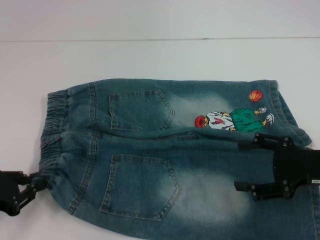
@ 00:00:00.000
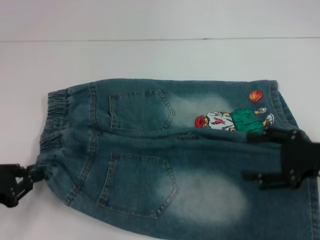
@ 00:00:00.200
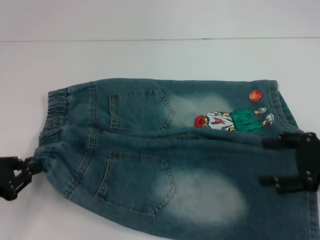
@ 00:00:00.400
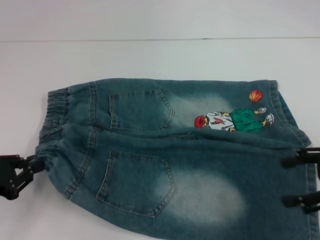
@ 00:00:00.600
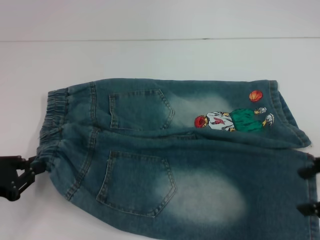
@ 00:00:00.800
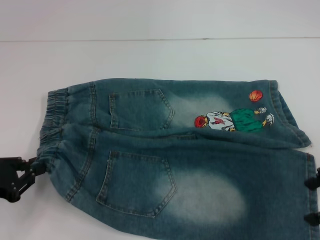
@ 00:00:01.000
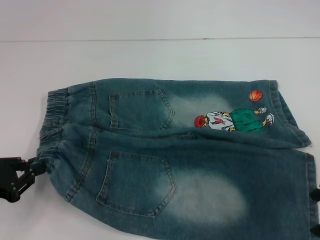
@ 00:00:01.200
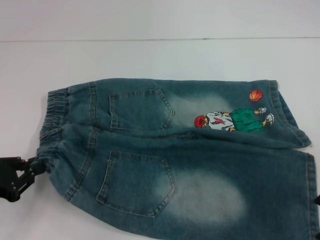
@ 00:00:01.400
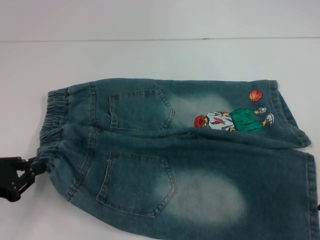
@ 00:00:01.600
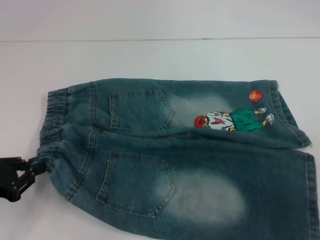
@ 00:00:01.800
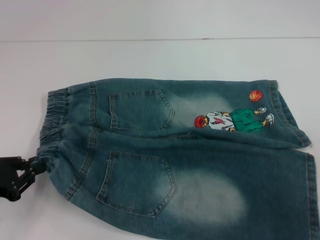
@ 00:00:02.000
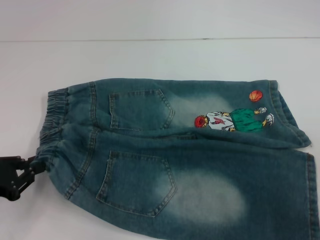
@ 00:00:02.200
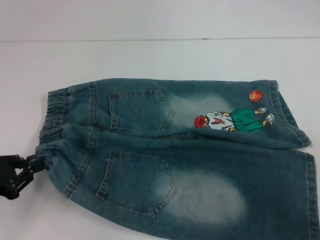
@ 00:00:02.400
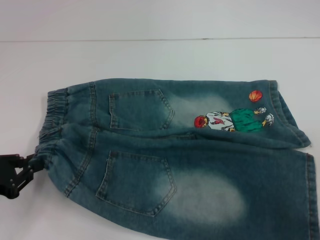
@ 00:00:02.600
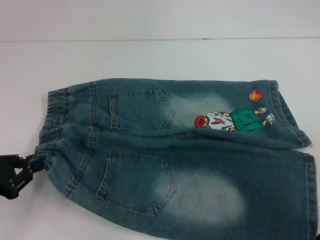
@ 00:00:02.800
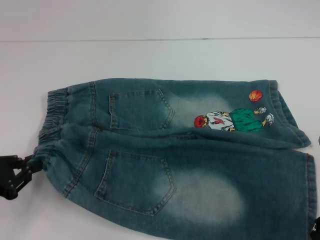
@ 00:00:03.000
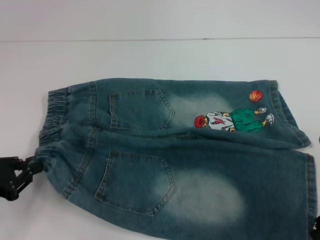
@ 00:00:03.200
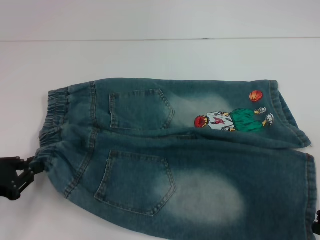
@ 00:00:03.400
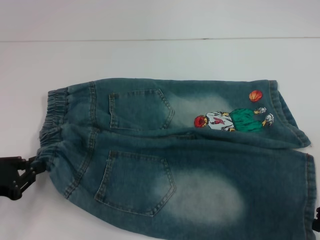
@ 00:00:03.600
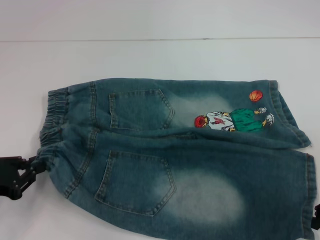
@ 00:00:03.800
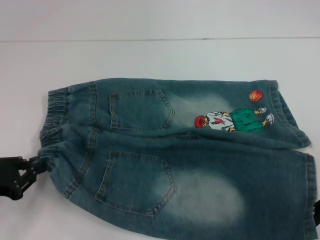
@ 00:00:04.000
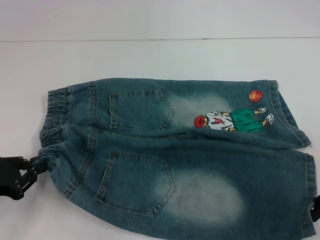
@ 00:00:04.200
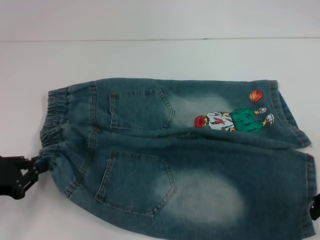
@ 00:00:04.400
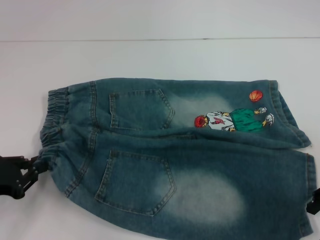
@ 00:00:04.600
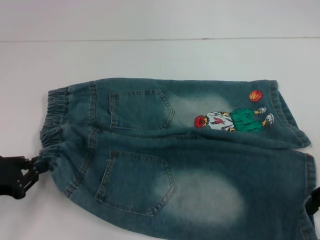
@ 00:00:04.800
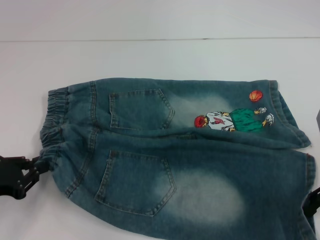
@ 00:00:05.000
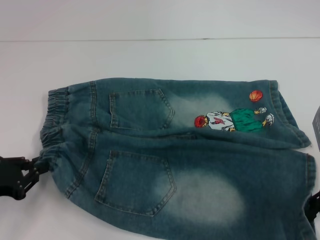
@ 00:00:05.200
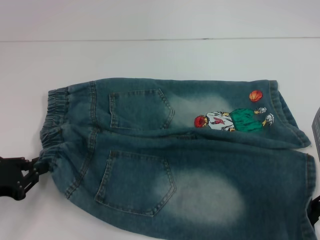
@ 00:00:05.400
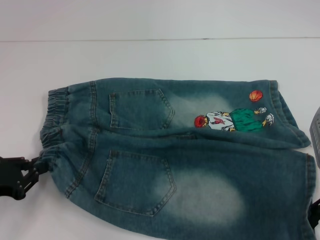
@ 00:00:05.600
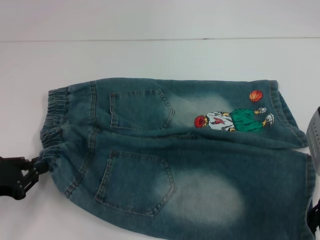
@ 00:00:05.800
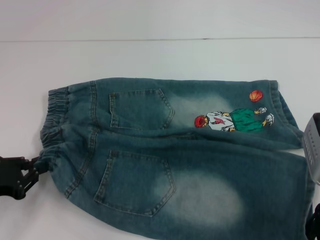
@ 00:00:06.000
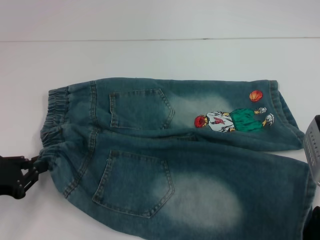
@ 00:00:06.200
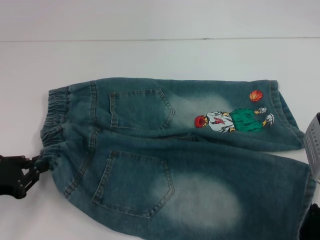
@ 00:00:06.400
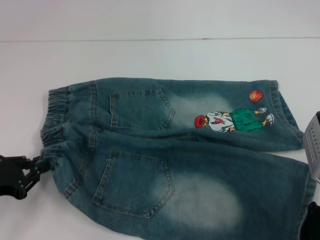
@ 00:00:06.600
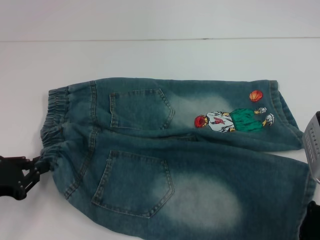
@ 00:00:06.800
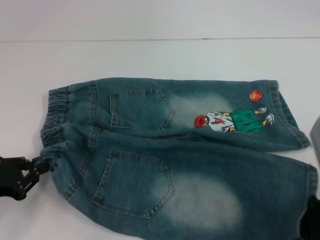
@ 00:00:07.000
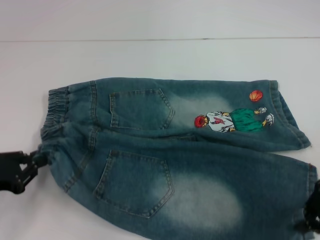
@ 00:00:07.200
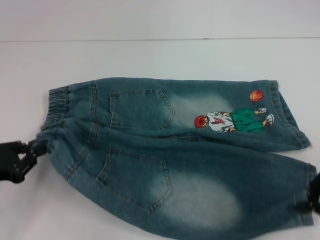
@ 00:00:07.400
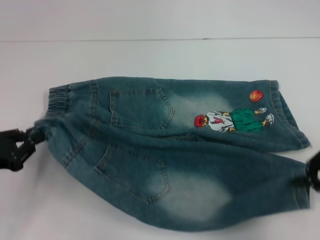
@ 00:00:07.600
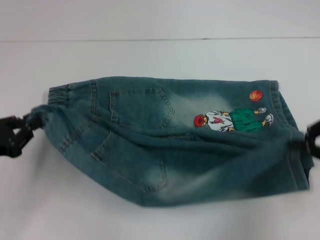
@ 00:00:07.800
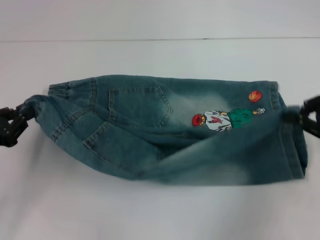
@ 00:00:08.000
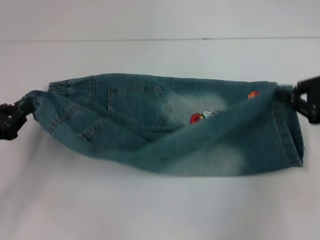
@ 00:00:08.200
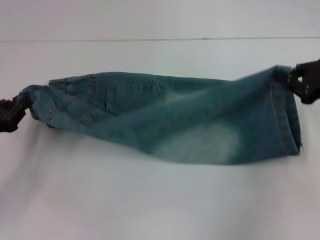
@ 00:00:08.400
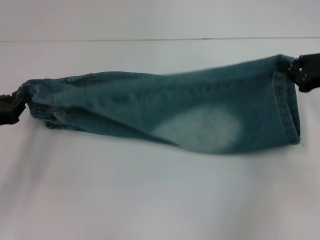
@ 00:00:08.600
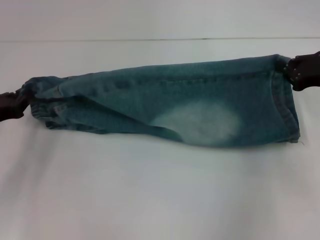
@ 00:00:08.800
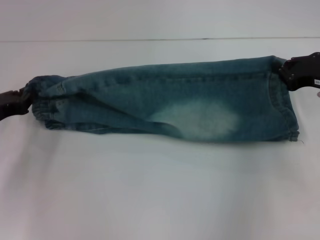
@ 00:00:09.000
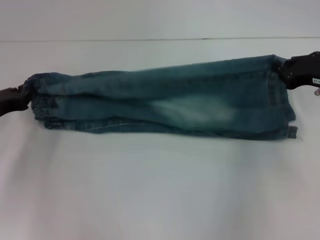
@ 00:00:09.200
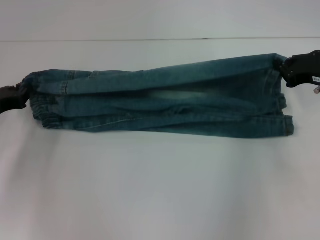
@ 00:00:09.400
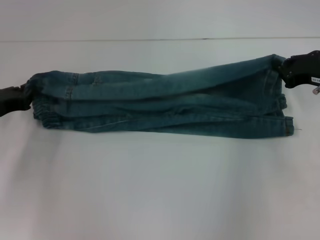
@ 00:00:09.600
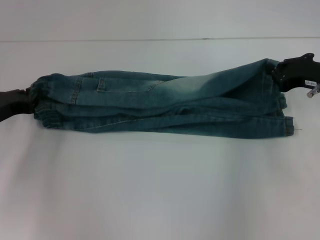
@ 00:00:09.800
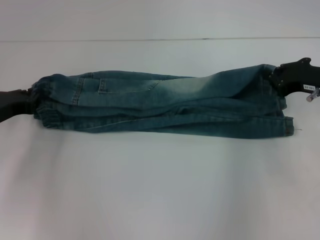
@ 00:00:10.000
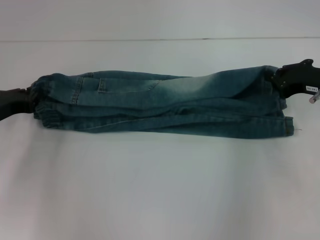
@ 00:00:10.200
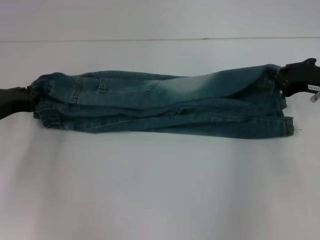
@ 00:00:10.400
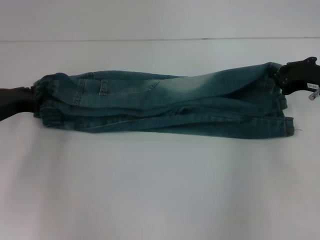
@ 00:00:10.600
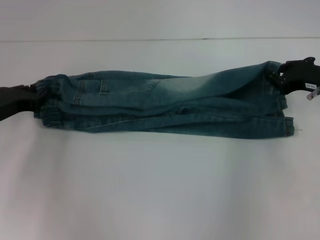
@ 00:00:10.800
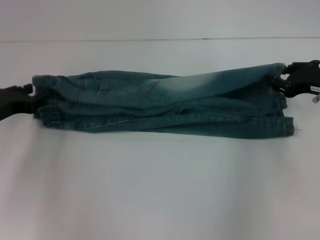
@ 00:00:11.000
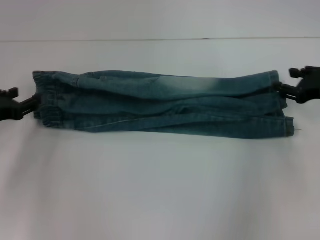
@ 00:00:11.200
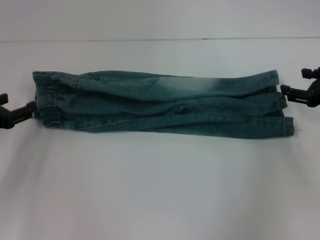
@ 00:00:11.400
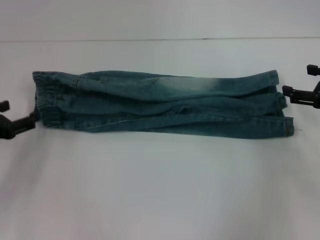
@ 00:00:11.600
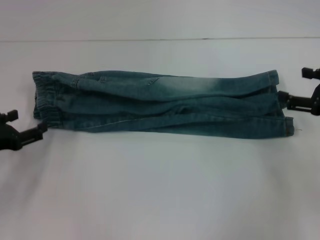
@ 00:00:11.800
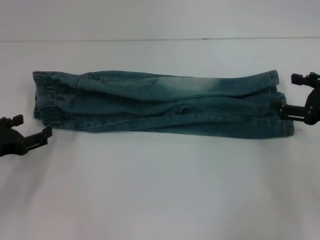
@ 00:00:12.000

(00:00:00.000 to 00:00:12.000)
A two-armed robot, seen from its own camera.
Step, 00:00:00.000 - 00:00:06.600: Grab the lower right pant leg with your right hand.
Step, 00:00:07.000 - 00:00:11.200: Fold upward with your right hand.
00:00:00.000 - 00:00:01.600: The right gripper goes some 5 cm upward.
00:00:01.600 - 00:00:06.000: The grippers make only small movements.
00:00:06.000 - 00:00:07.600: The right gripper moves to the right, about 5 cm, and closes.
00:00:07.600 - 00:00:09.000: Both grippers move forward, about 10 cm.
00:00:09.000 - 00:00:10.400: The grippers move only a little.
00:00:10.400 - 00:00:12.000: The grippers both shift backward by roughly 5 cm. The right gripper opens its fingers. The left gripper opens its fingers.

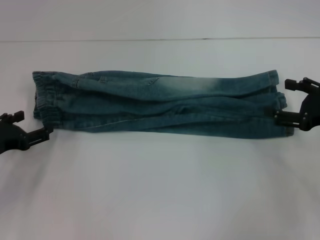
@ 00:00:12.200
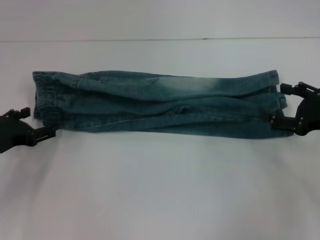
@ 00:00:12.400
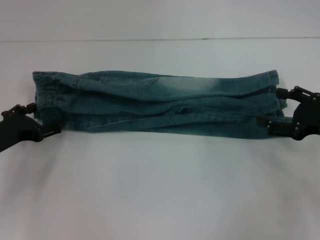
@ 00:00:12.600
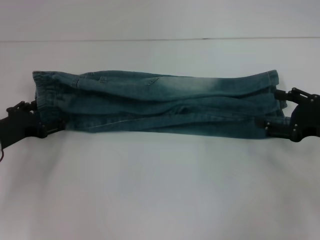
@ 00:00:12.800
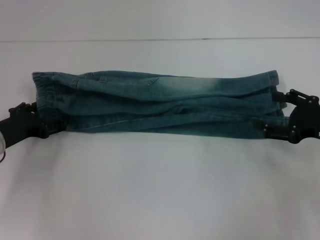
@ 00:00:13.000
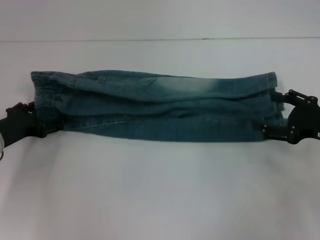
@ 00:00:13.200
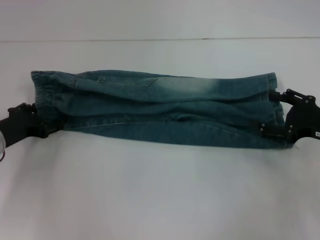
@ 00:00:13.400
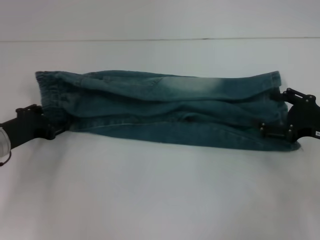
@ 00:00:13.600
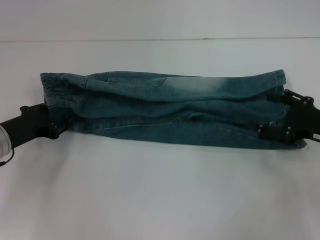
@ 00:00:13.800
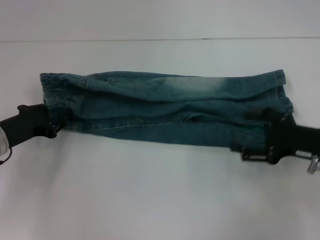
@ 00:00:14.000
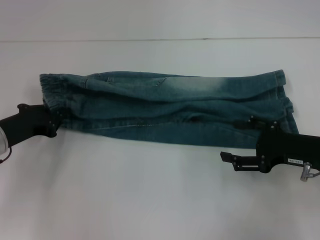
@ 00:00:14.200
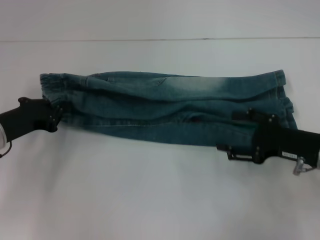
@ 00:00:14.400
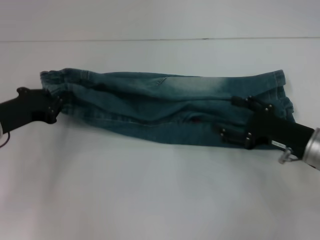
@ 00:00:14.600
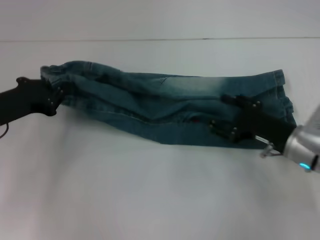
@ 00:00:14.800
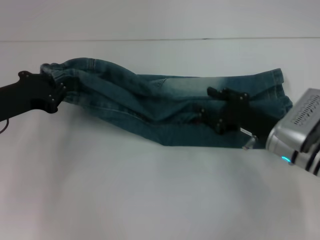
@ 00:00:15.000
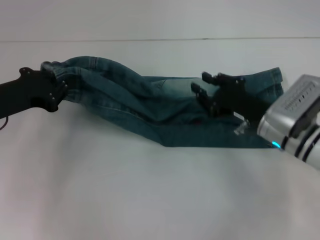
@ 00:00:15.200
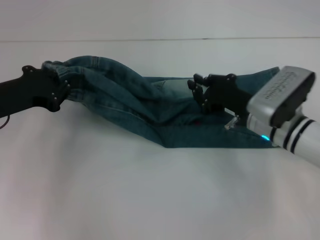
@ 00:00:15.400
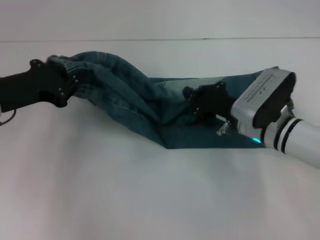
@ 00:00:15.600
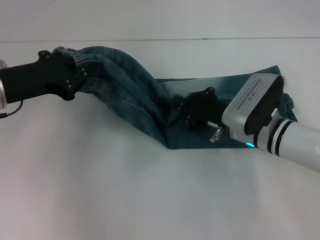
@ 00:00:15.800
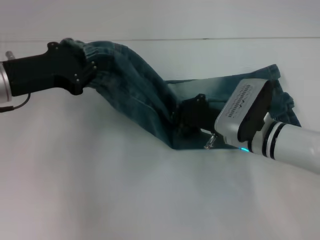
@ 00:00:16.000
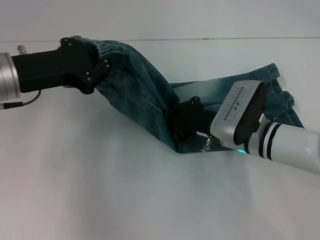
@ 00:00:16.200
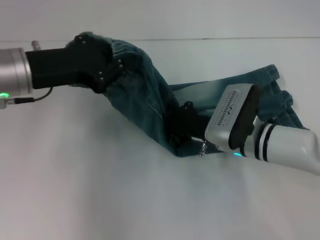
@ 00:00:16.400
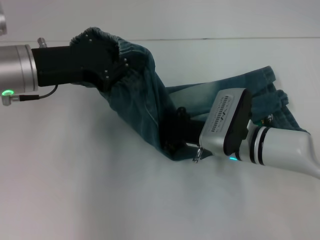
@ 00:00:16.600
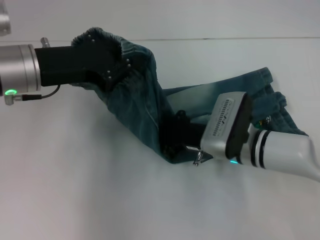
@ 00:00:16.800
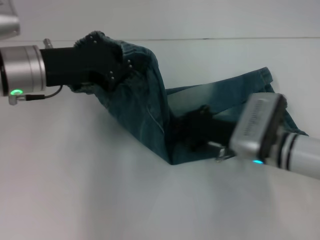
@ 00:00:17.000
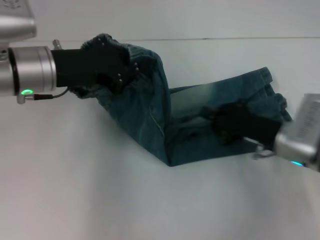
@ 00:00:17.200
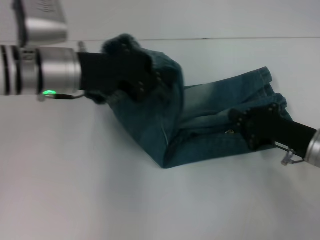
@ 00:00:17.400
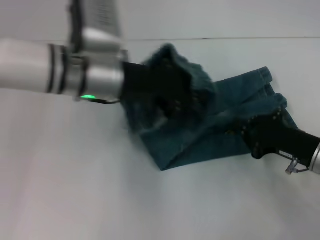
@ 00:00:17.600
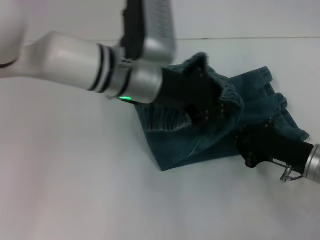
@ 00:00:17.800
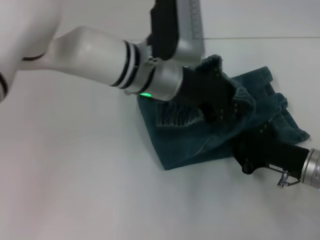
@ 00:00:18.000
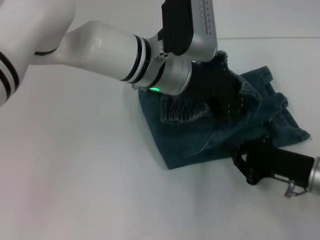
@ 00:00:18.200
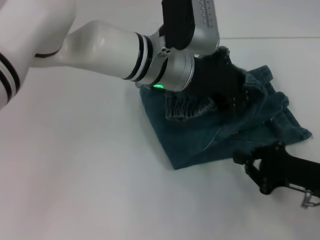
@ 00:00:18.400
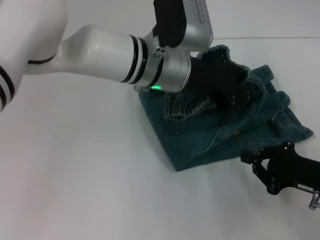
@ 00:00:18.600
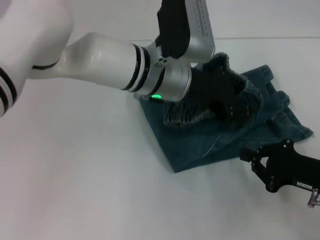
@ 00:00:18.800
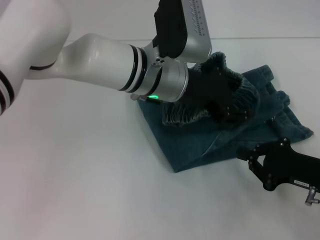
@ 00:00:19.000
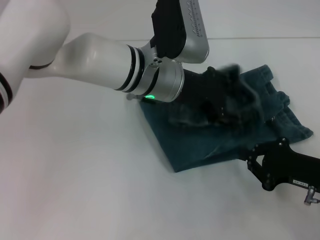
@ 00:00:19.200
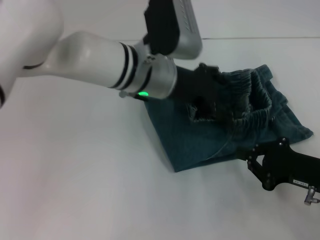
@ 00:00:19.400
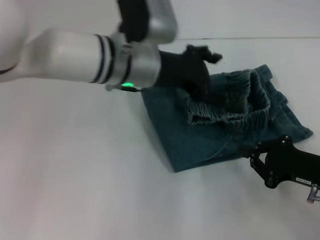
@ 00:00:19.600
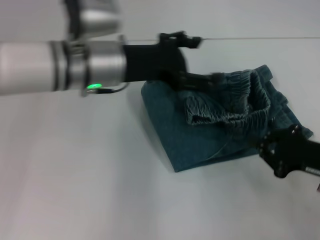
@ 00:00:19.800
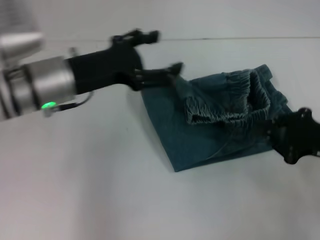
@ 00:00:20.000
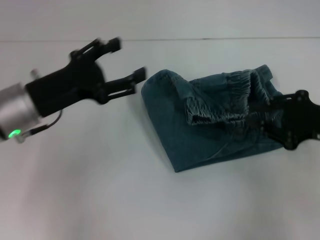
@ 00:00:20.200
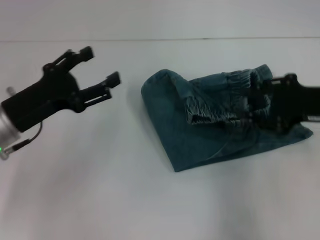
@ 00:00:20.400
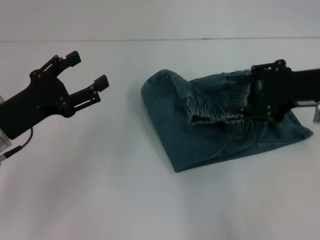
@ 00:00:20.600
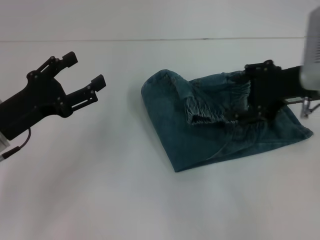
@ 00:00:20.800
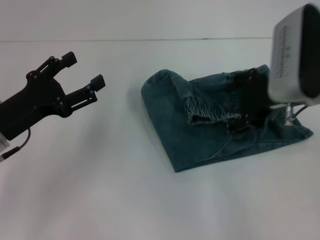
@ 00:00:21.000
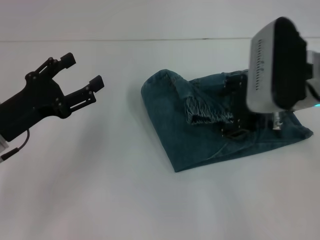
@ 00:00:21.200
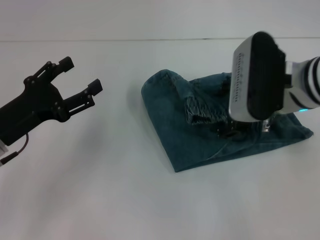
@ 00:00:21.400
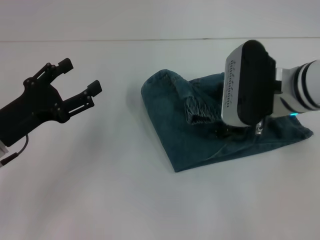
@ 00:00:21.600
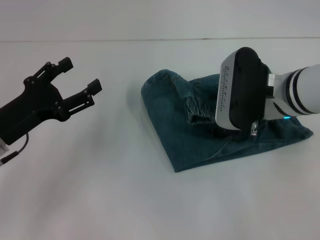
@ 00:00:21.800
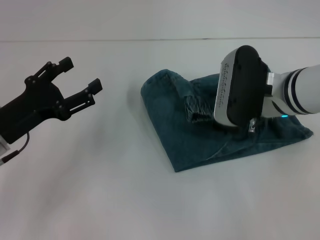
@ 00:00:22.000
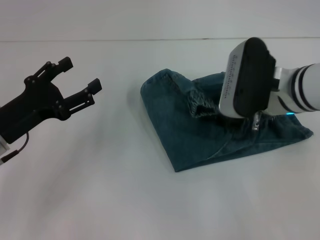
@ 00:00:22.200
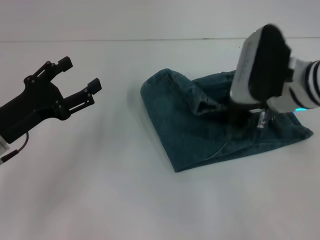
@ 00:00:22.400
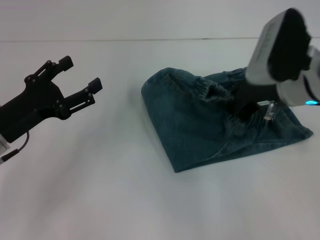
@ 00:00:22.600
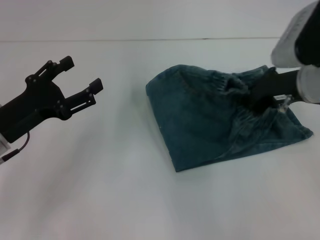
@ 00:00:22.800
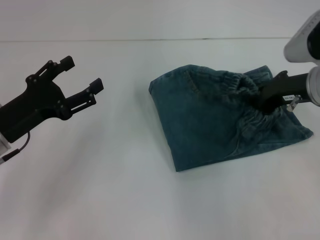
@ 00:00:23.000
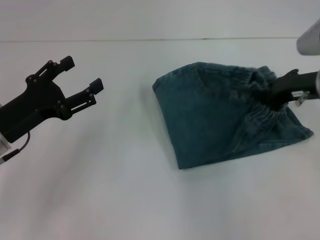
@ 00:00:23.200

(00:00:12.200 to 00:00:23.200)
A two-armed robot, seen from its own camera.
Step, 00:00:12.200 - 00:00:14.200: Hold the waistband with your left hand.
Step, 00:00:14.400 - 00:00:17.000: Press the middle of the pants with your right hand.
Step, 00:00:17.200 - 00:00:19.400: Fold to the right with your left hand.
00:00:12.200 - 00:00:13.800: The left gripper changes place by about 5 cm.
00:00:13.800 - 00:00:15.400: The right gripper is displaced to the left and forward by about 15 cm, and closes its fingers; the left gripper goes about 10 cm upward, and closes.
00:00:15.400 - 00:00:17.000: The left gripper heads to the right and upward, covering about 10 cm. Meanwhile the right gripper closes up.
00:00:17.000 - 00:00:18.400: The right gripper shifts some 15 cm to the right and backward. The left gripper shifts approximately 20 cm to the right.
00:00:18.400 - 00:00:20.000: The left gripper travels to the left by about 15 cm, and opens its fingers, while the right gripper is displaced upward by roughly 5 cm.
00:00:20.000 - 00:00:21.600: The left gripper moves to the left, backward and downward, roughly 15 cm; the right gripper heads to the left, forward and upward, covering roughly 20 cm, and opens up.
00:00:21.600 - 00:00:23.200: The right gripper heads to the right, covering roughly 10 cm, and closes.
